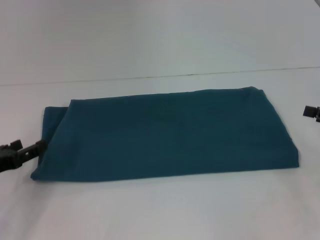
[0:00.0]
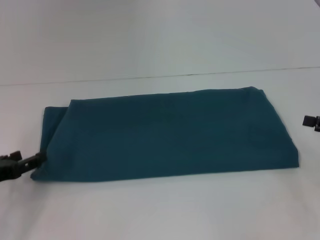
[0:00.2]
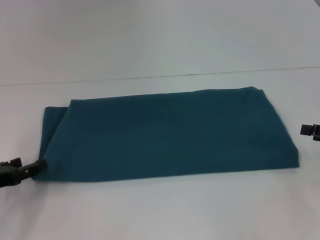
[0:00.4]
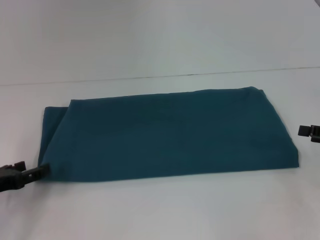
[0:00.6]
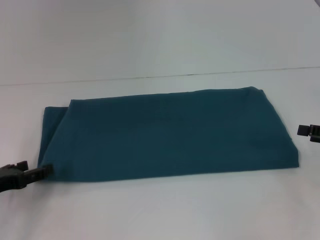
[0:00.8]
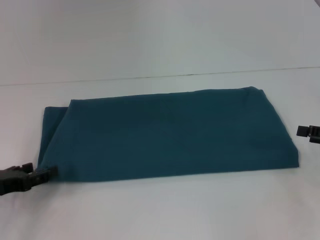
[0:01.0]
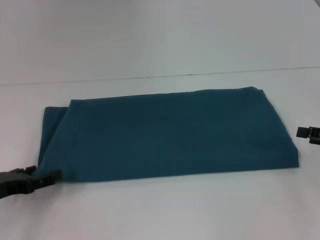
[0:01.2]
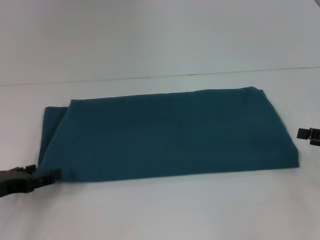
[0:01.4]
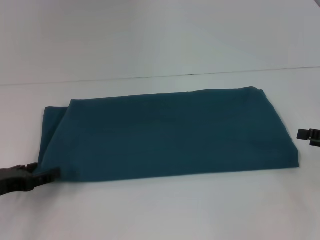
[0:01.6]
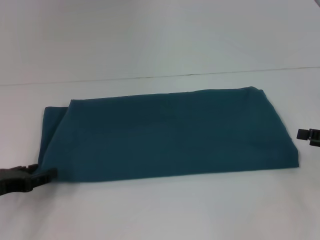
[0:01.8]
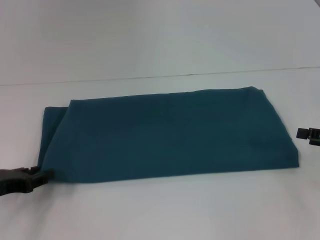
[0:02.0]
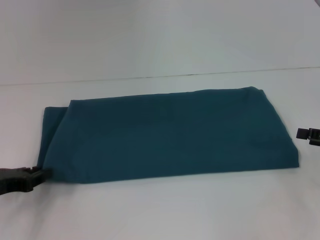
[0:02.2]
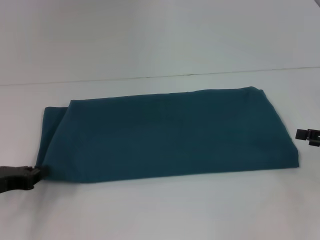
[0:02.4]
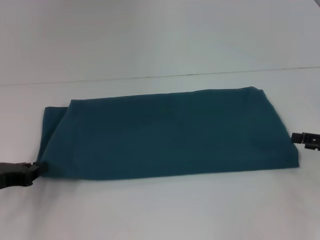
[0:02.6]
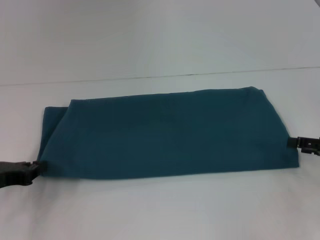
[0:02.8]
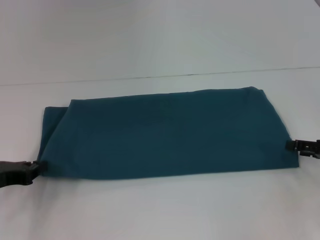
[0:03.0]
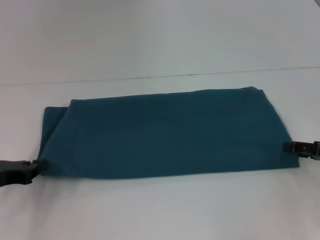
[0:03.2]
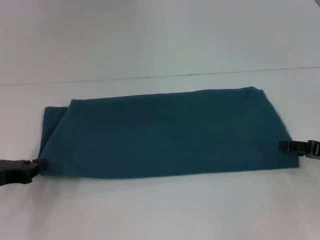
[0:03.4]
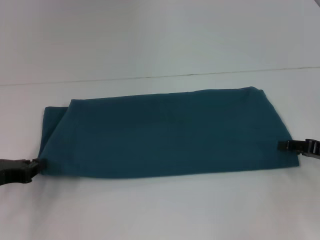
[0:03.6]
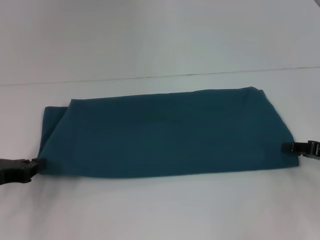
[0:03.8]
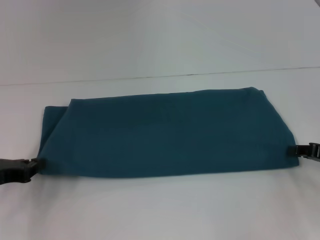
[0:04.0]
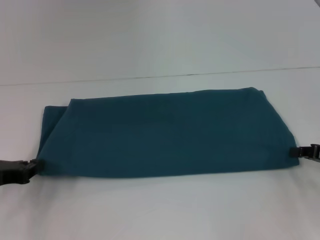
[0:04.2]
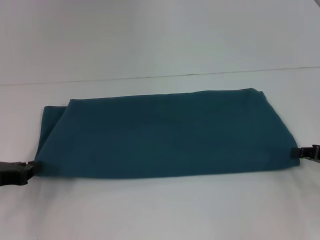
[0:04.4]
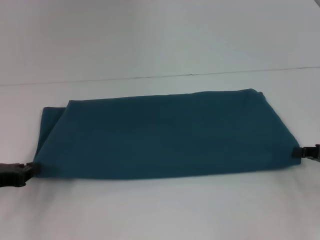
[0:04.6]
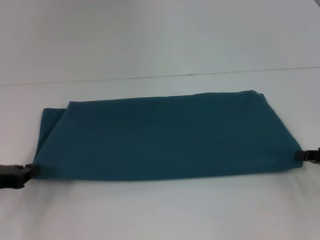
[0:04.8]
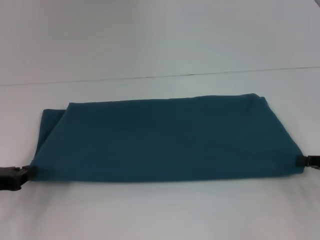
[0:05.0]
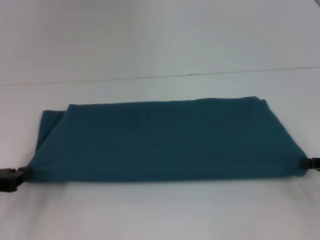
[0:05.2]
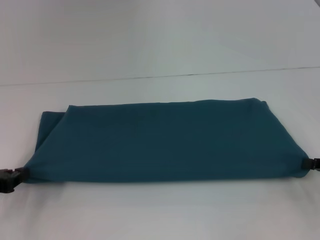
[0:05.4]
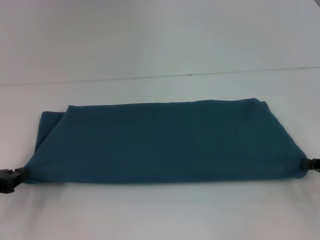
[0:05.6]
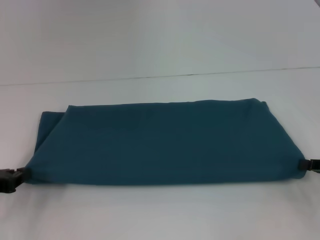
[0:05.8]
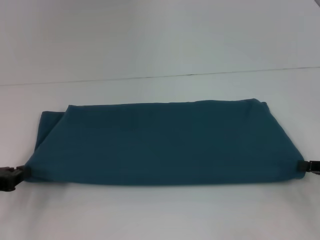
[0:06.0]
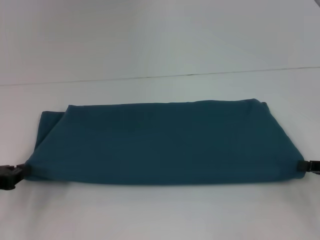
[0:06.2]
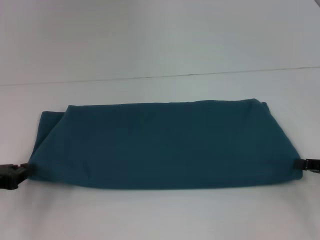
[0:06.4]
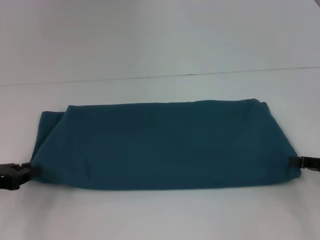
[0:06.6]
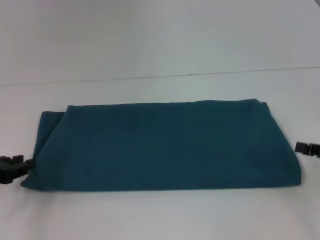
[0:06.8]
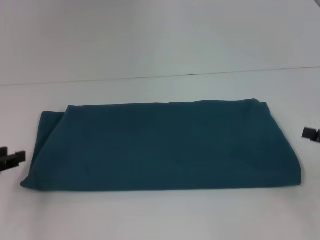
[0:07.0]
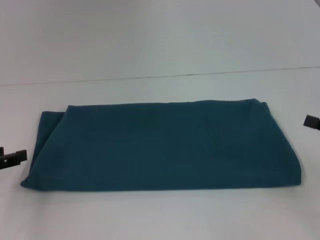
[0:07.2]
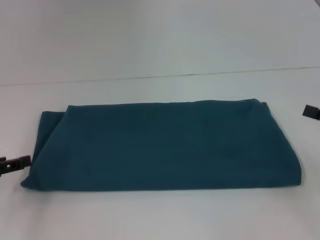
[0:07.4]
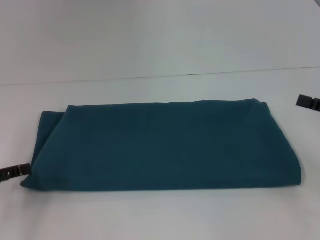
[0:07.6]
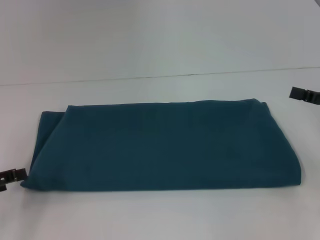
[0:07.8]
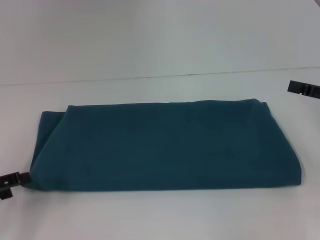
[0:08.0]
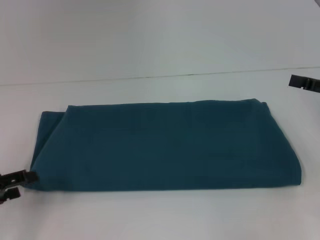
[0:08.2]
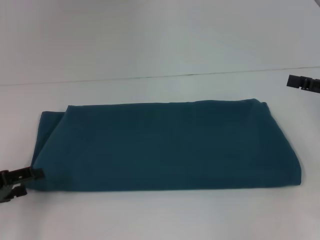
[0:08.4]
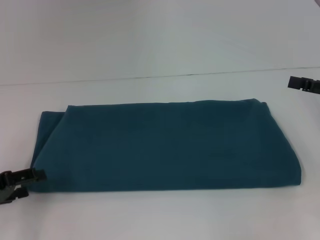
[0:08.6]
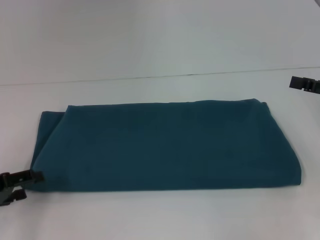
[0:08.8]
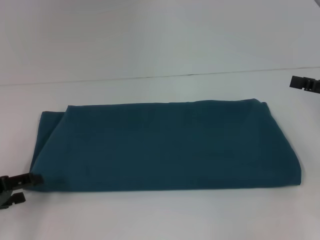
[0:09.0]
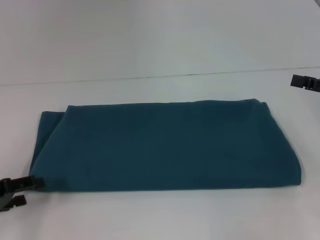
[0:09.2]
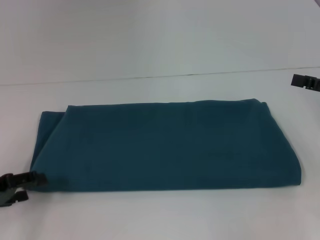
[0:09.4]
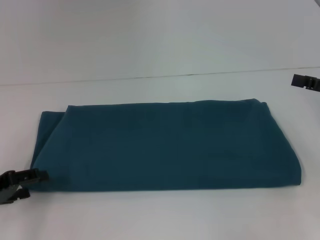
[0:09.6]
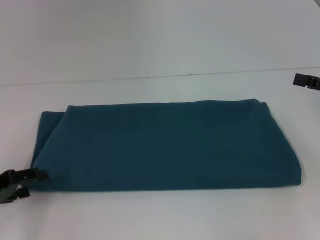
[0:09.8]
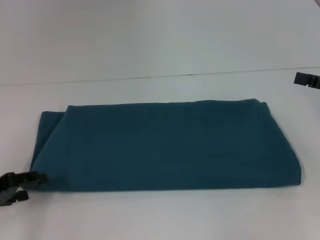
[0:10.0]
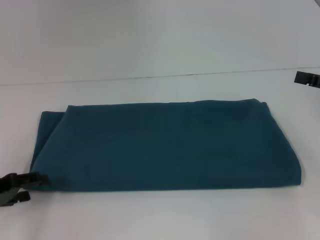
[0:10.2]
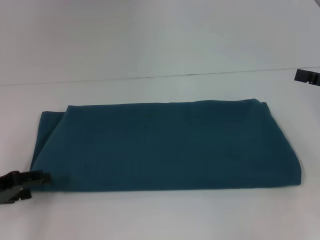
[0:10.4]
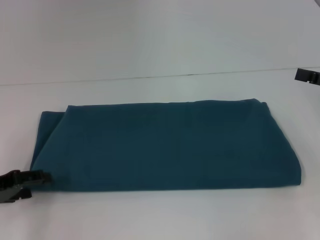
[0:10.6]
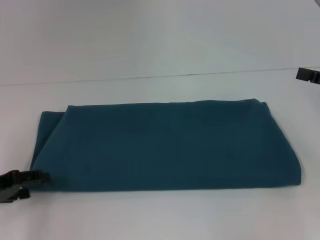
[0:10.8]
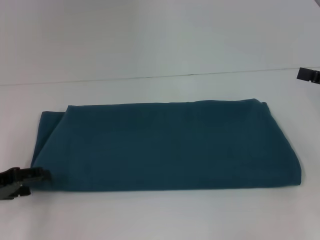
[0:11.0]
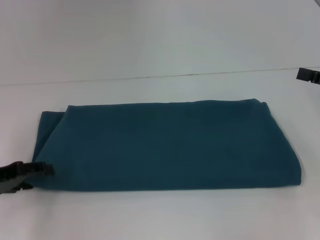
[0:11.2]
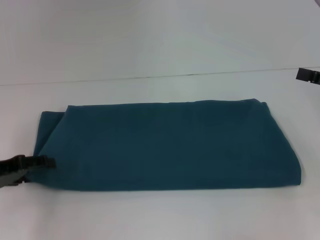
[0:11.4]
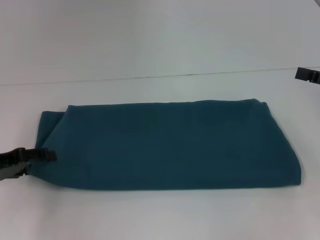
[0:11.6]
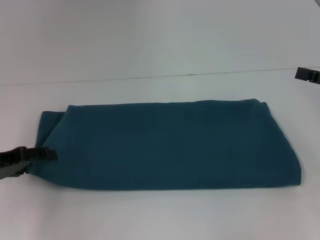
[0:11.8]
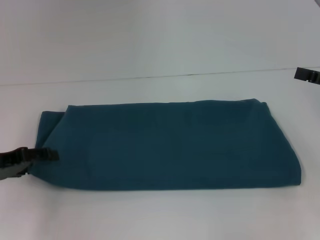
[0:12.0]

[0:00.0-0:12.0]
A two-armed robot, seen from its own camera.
0:00.0 to 0:01.6: The grippers make only small movements.
0:01.6 to 0:03.0: The left gripper closes up.
0:03.0 to 0:04.4: The right gripper closes its fingers.
0:04.4 to 0:06.0: The grippers move only a little.
0:06.0 to 0:07.6: The left gripper opens up; the right gripper shifts roughly 5 cm upward, and opens up.
0:09.0 to 0:12.0: The grippers make only small movements.

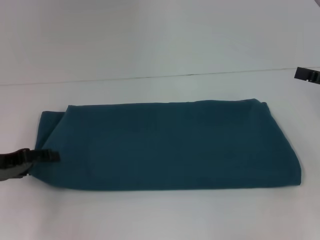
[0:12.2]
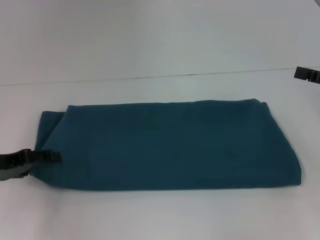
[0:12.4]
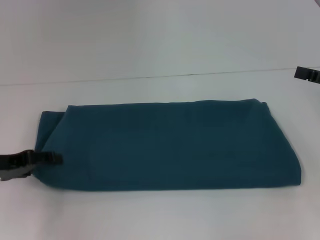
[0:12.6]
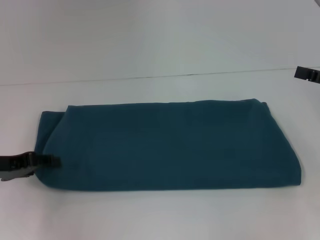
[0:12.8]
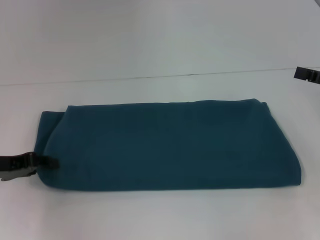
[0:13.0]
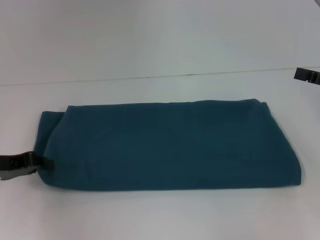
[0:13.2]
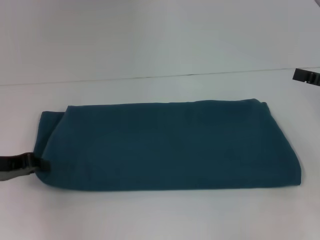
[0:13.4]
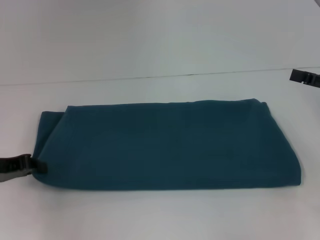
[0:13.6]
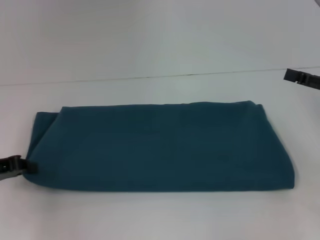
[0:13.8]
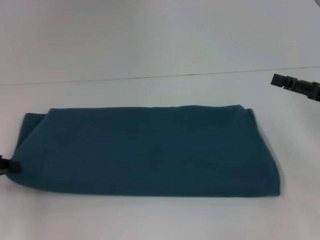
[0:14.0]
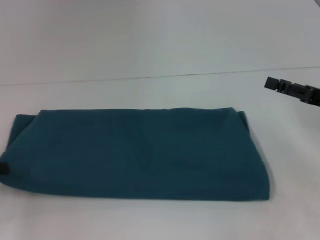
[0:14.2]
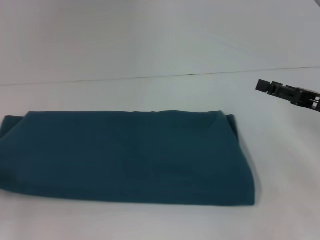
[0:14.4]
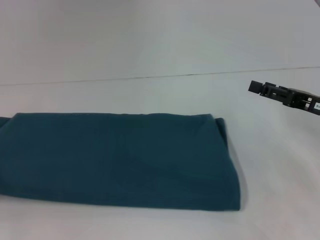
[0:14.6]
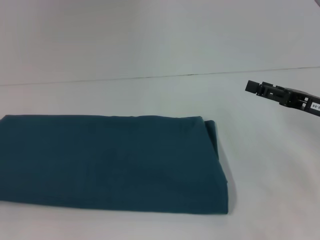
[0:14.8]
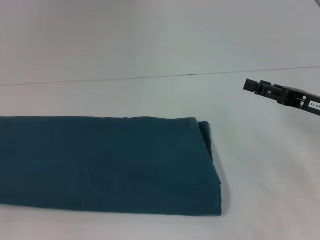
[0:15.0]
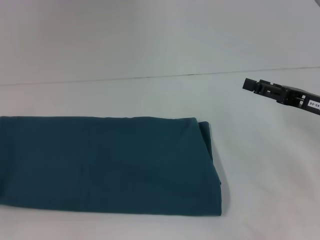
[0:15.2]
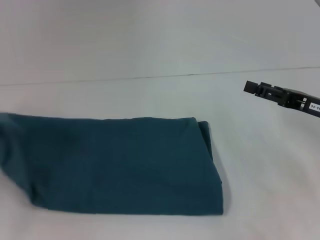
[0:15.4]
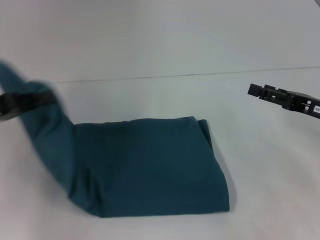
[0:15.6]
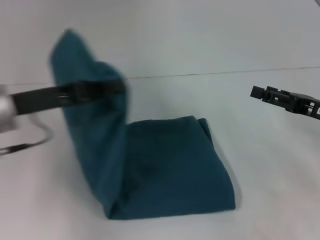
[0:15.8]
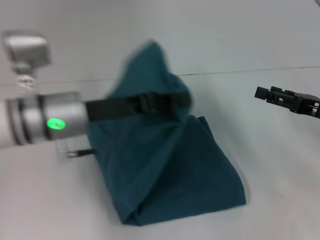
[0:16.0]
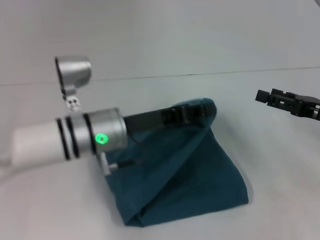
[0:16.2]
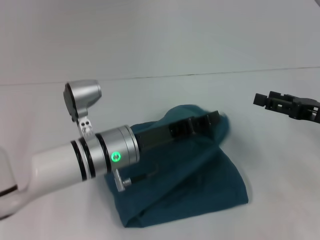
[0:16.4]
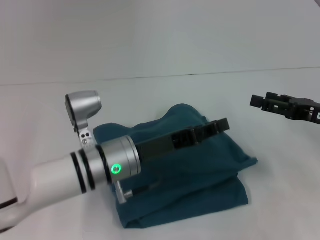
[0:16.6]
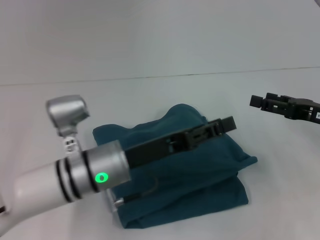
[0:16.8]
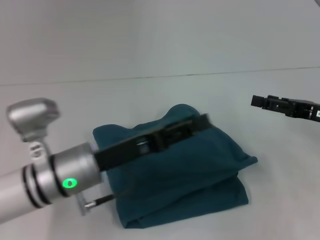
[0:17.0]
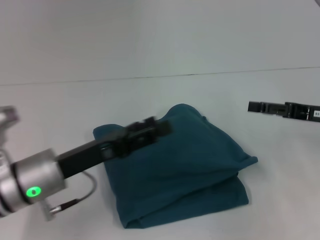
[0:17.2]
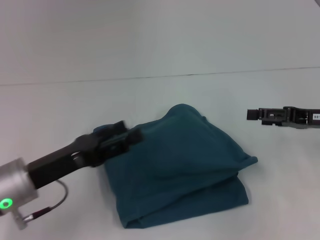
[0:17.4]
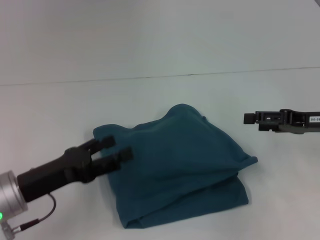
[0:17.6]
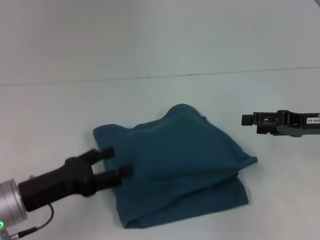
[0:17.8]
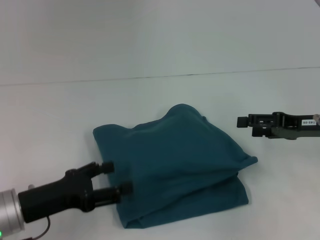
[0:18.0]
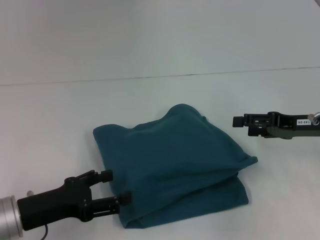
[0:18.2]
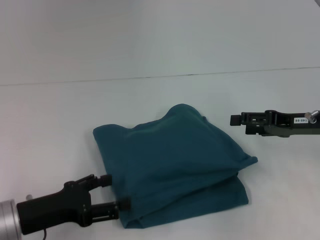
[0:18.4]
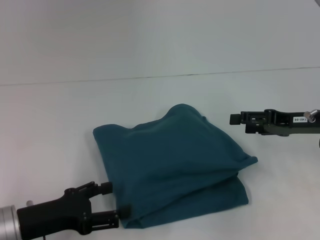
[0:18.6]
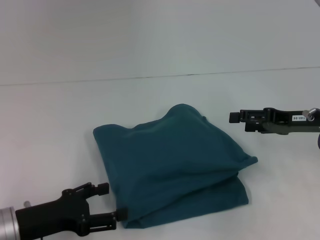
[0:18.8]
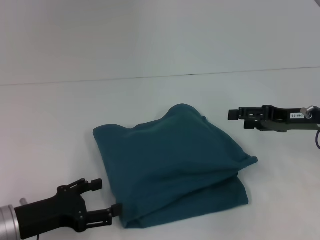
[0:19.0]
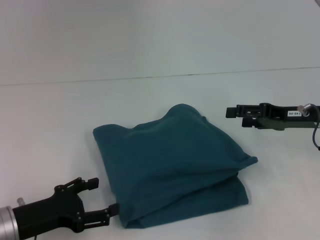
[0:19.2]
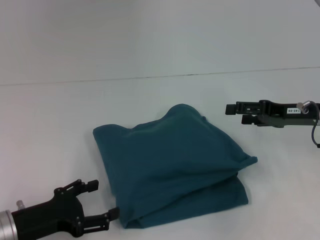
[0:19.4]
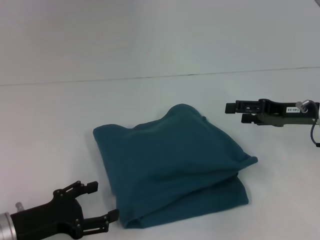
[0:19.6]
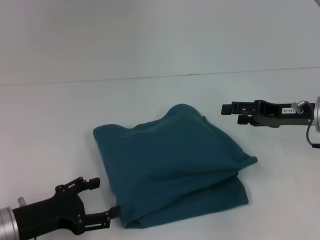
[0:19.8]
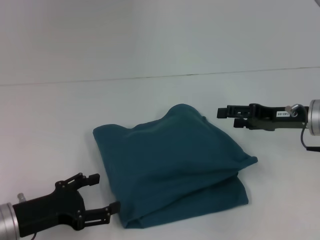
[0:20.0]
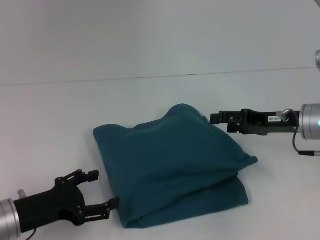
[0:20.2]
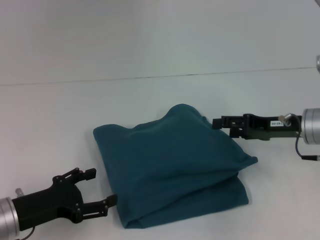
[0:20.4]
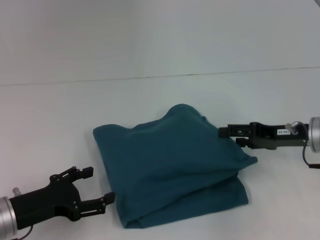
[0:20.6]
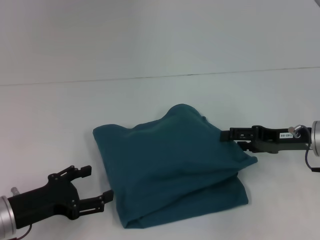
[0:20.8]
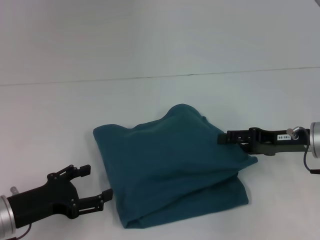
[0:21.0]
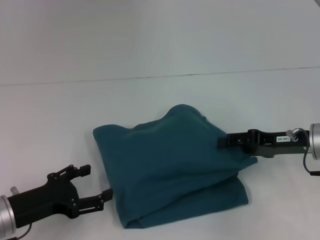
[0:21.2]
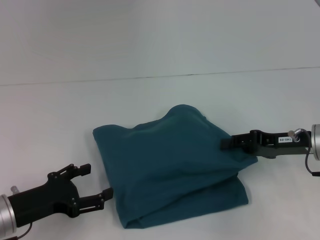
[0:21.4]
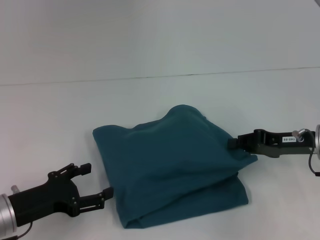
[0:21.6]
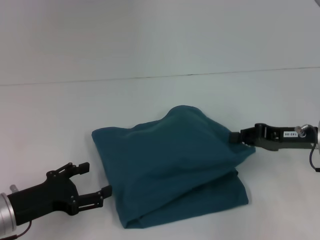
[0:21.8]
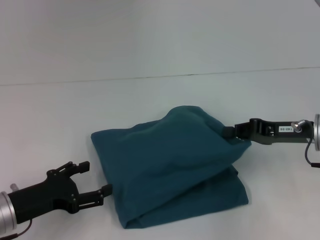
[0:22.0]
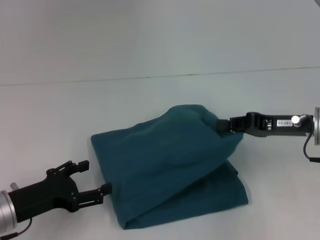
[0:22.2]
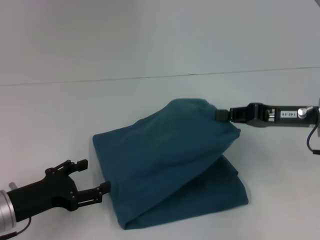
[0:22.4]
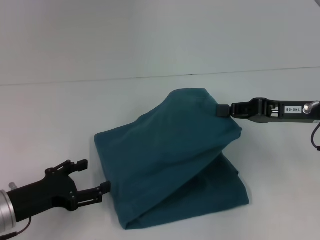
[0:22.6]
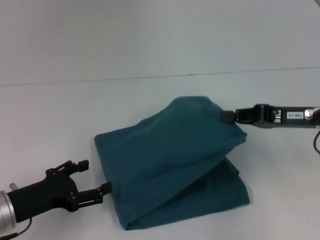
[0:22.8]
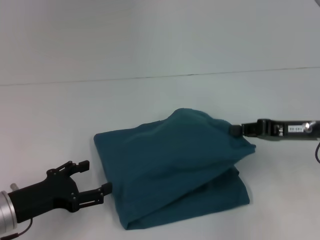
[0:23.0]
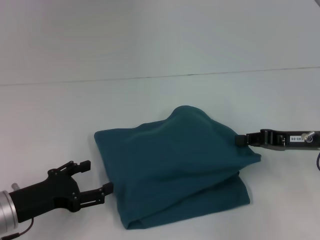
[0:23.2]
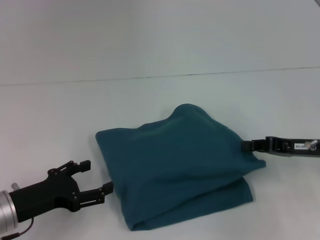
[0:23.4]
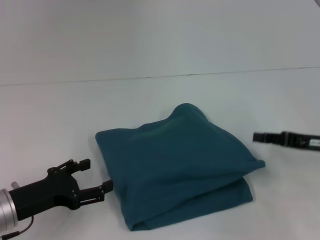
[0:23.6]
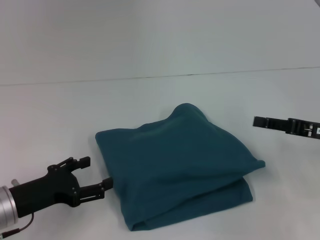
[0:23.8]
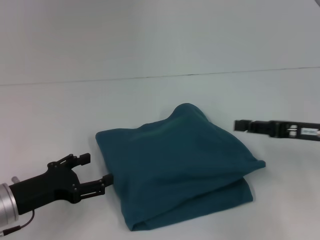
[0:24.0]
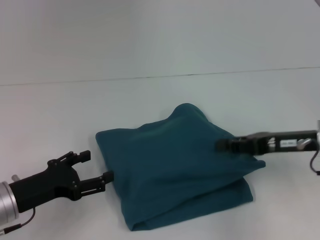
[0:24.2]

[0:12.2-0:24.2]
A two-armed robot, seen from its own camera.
Step, 0:12.2 to 0:16.6: Fold the clothes to the left.
0:12.2 to 0:13.8: The left gripper closes.
0:13.8 to 0:15.2: The right gripper moves to the left, some 5 cm. Meanwhile the left gripper shifts some 10 cm to the left.
0:15.2 to 0:16.6: The left gripper travels to the right by some 35 cm.
0:16.6 to 0:18.2: The left gripper is displaced to the left and backward by about 15 cm, and opens its fingers.
0:18.2 to 0:21.2: The grippers make only small movements.
0:21.2 to 0:22.6: The right gripper moves upward, about 5 cm, and closes.
0:22.6 to 0:24.2: The right gripper opens its fingers.
